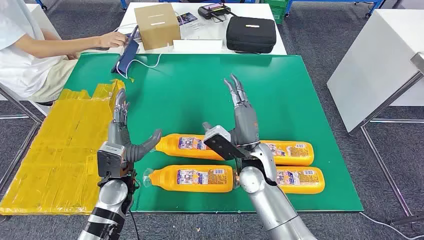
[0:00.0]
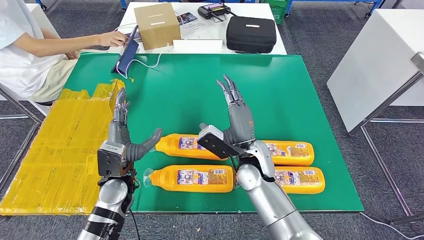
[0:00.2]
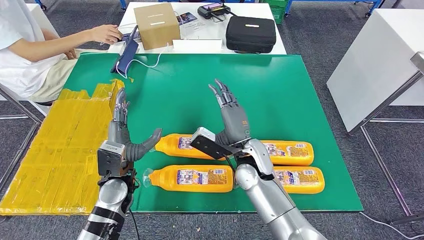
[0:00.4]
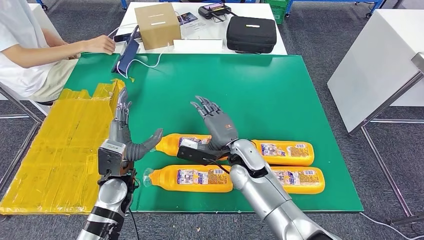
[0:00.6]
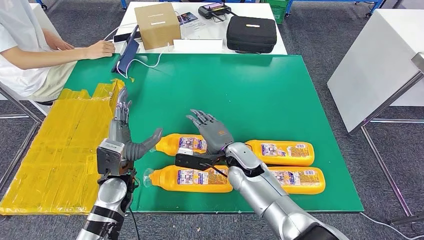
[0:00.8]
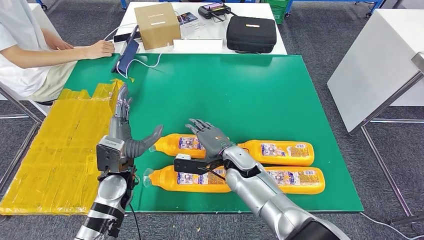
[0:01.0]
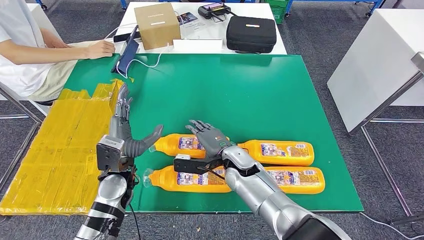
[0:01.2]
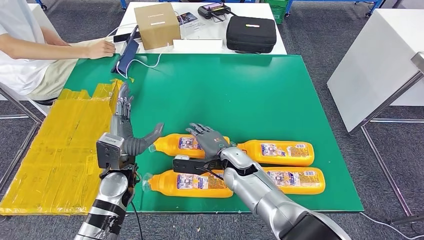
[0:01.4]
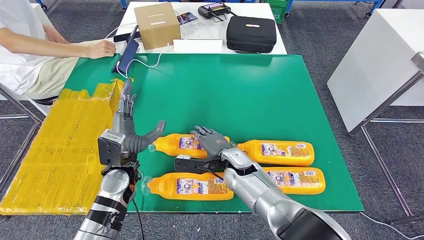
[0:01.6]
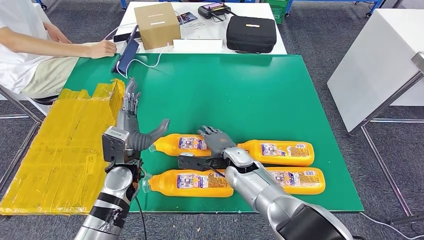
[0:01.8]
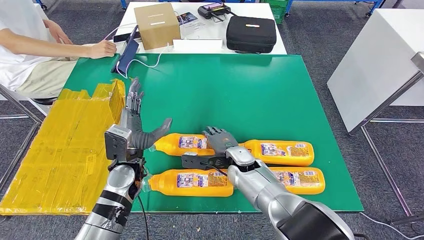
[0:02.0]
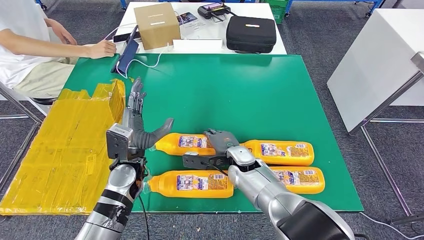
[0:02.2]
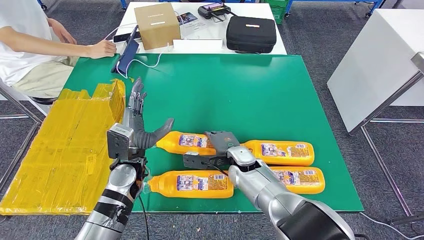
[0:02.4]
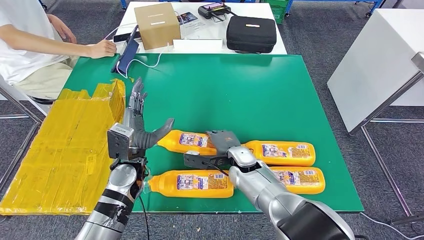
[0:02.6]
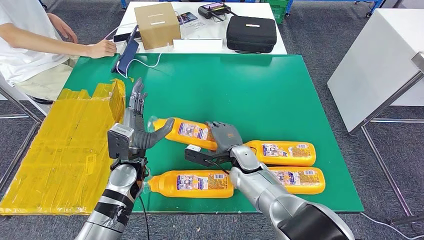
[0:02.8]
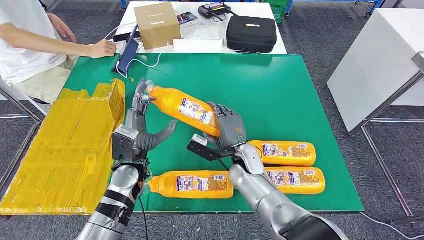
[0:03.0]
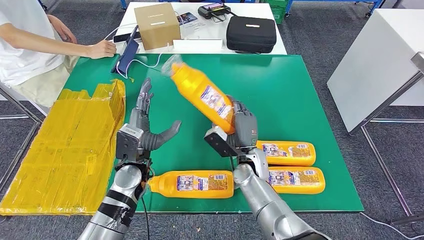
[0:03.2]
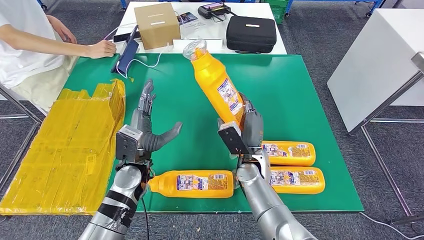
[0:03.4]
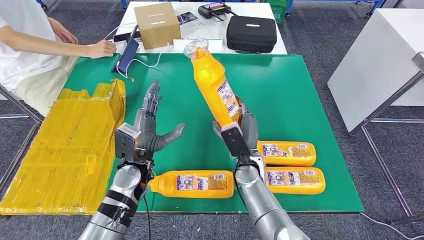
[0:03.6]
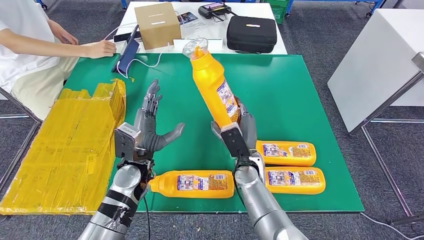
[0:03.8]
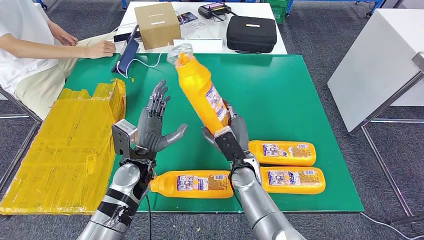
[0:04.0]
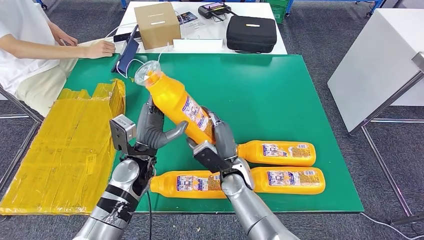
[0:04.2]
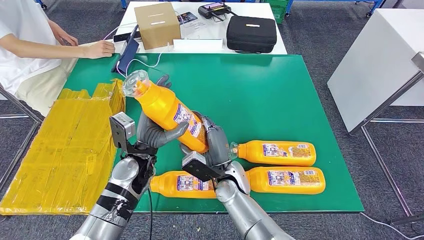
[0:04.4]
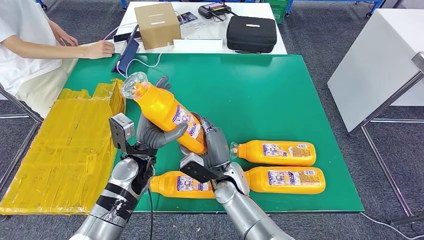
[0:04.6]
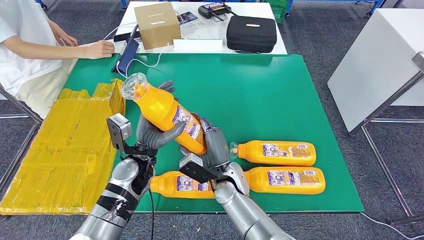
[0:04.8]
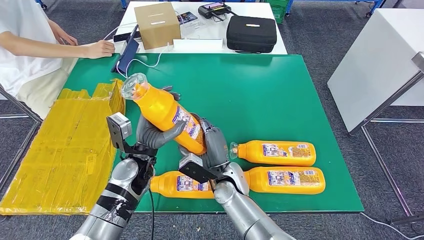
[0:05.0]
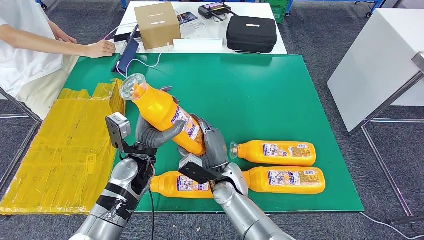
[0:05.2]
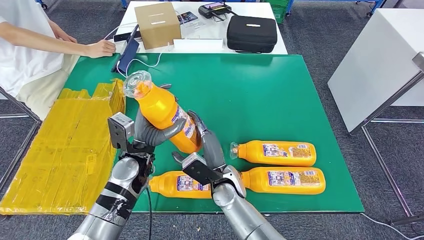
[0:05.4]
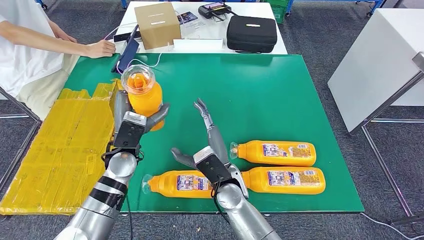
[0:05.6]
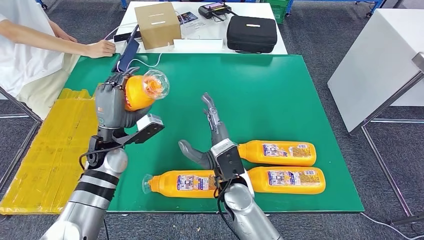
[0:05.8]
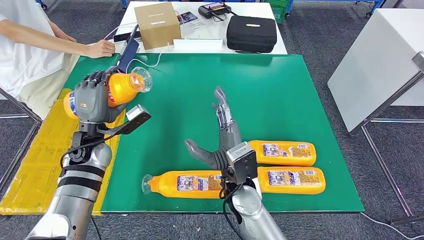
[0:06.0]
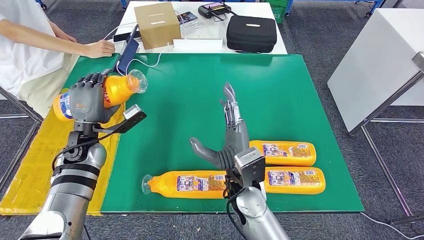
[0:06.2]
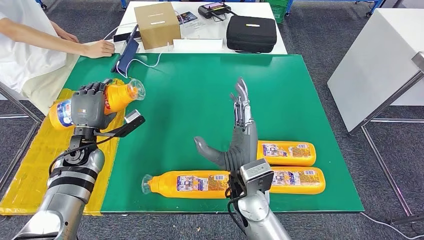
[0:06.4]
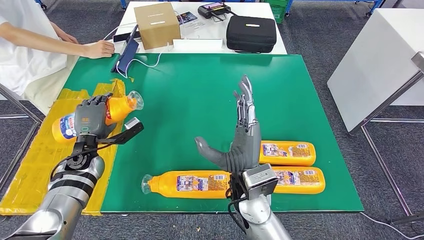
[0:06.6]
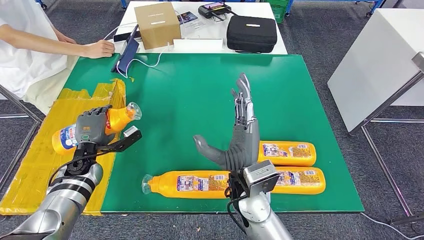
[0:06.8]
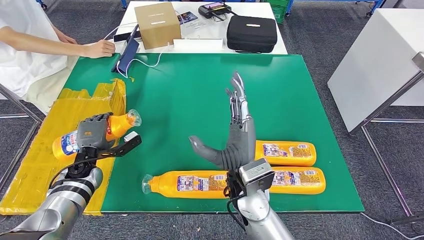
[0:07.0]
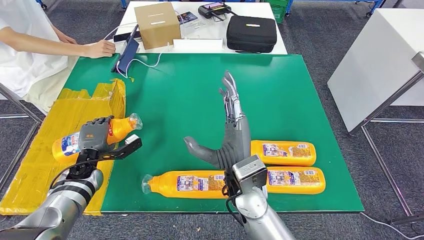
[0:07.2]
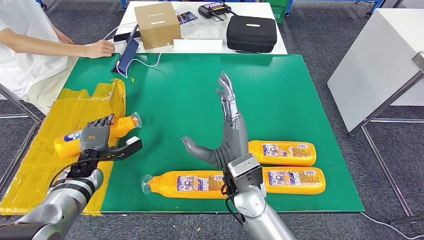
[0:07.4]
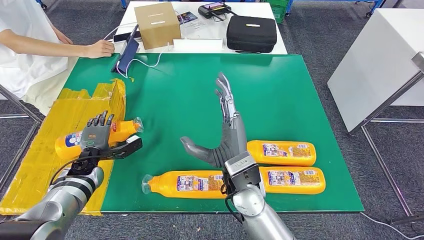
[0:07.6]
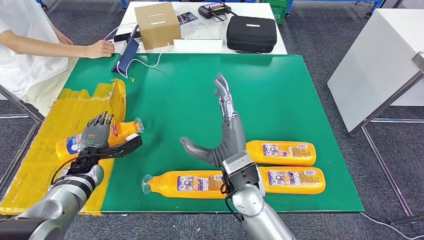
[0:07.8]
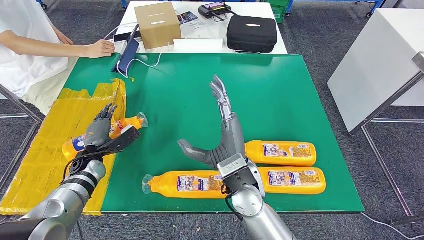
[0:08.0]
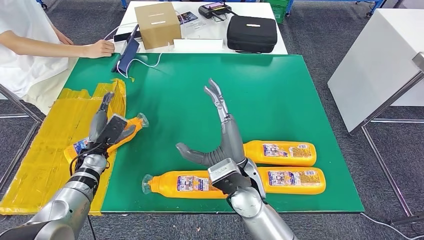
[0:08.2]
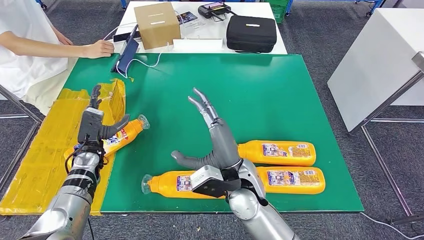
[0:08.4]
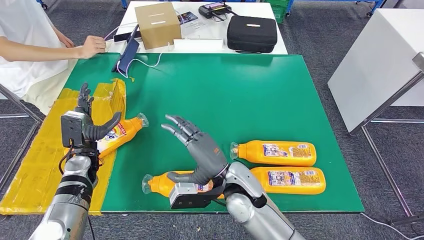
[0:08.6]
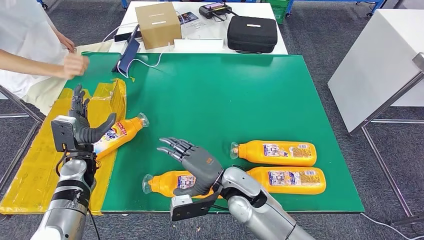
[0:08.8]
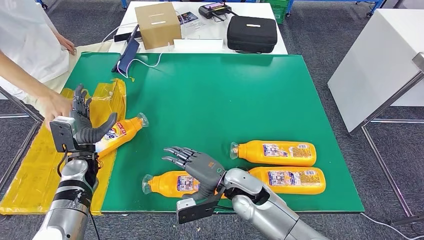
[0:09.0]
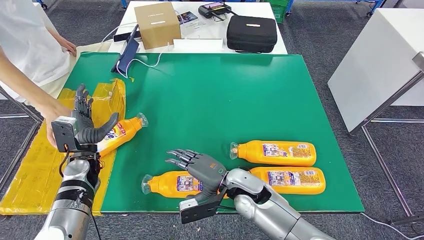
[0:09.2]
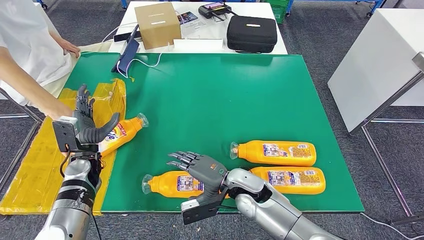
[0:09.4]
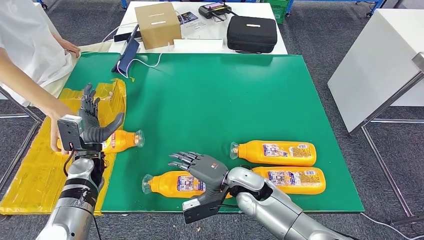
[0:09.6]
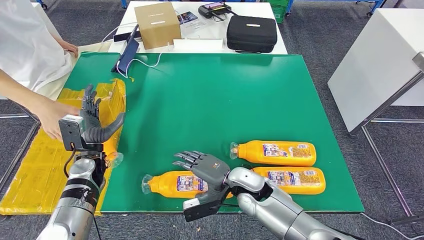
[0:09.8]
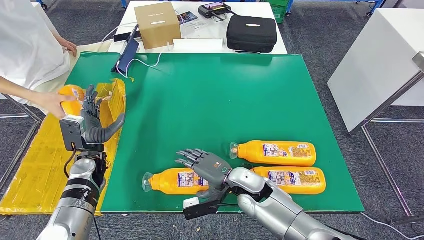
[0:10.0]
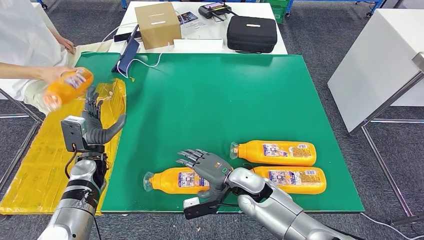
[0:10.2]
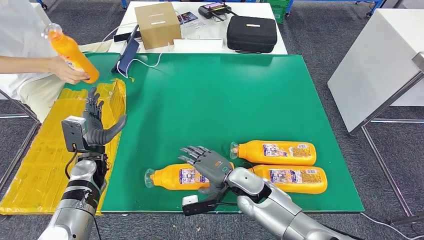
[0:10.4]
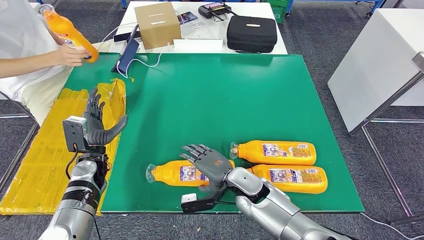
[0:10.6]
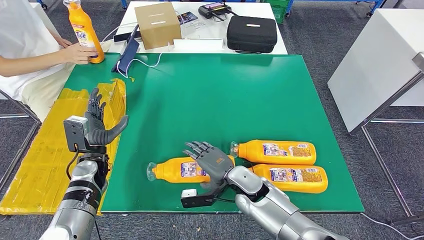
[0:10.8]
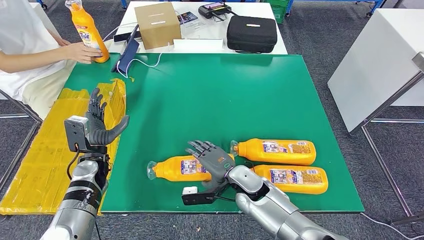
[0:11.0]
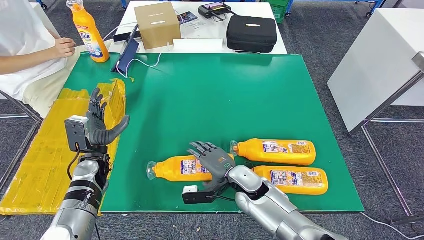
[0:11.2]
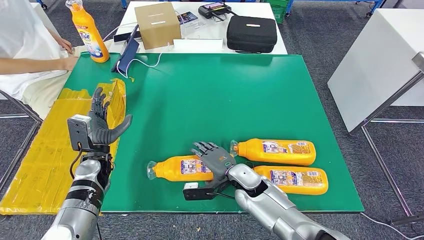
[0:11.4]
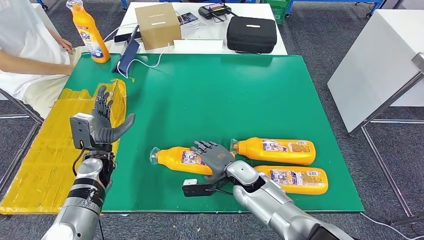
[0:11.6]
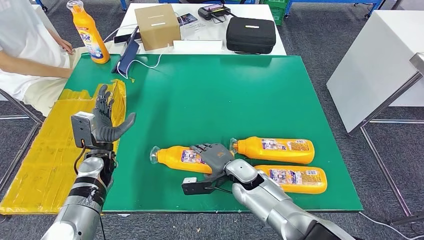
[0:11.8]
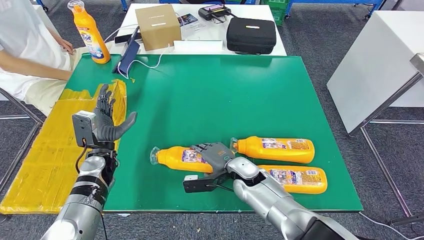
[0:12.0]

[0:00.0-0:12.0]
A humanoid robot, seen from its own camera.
Step, 0:00.0 to 0:05.0: Take the fast-moving consumer goods bottle from the table.
Step, 0:05.2 to 0:08.2: Flip the fast-moving consumer goods bottle to the front side.
0:03.0 to 0:04.4: The right hand moves backward, about 5 cm.
0:06.0 to 0:07.6: The left hand heads downward and to the left, covering some 15 cm.
0:07.6 to 0:09.0: The right hand heads downward, covering about 10 cm.
0:09.0 to 0:10.4: The hands make only small movements.

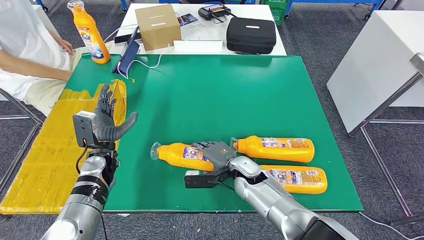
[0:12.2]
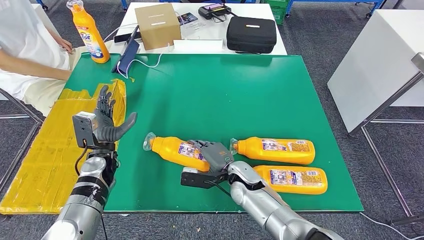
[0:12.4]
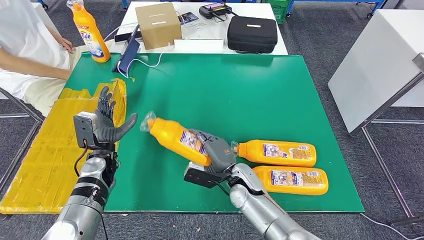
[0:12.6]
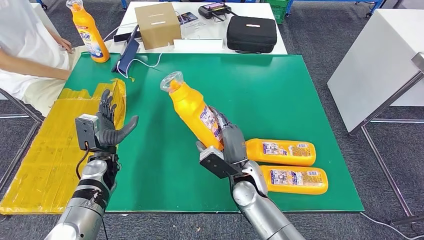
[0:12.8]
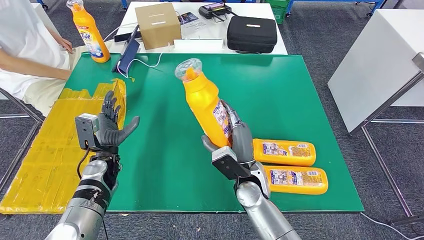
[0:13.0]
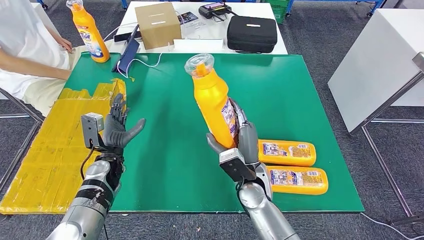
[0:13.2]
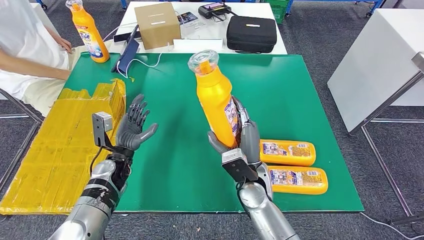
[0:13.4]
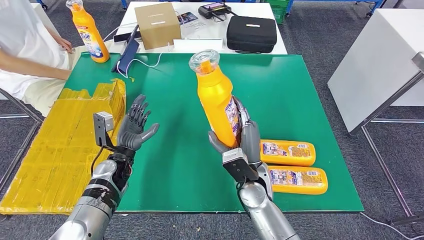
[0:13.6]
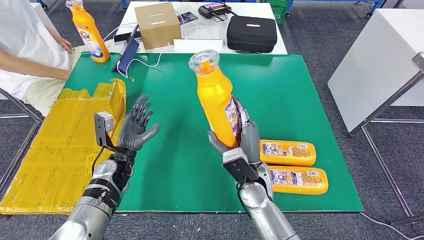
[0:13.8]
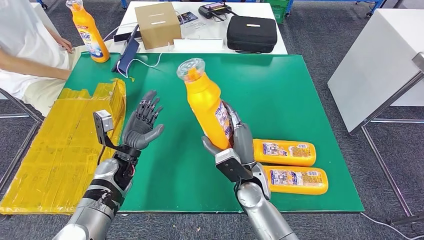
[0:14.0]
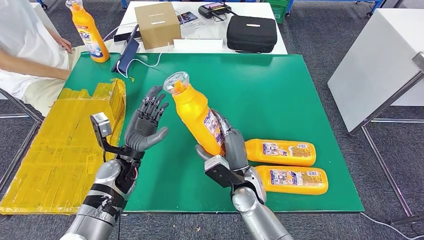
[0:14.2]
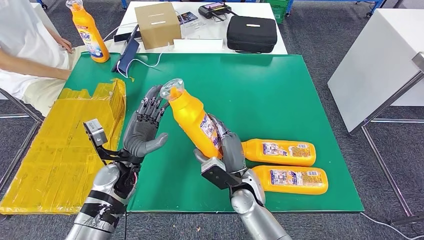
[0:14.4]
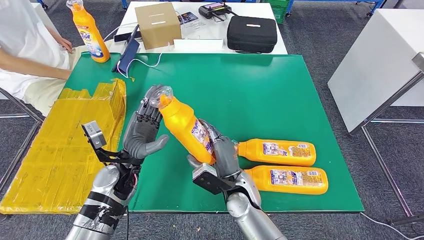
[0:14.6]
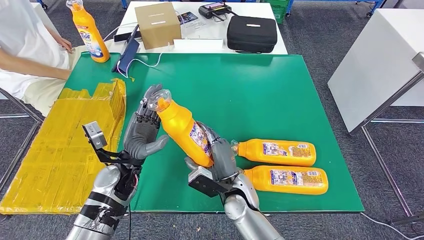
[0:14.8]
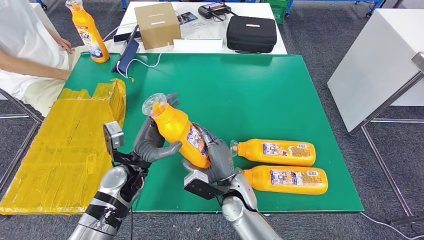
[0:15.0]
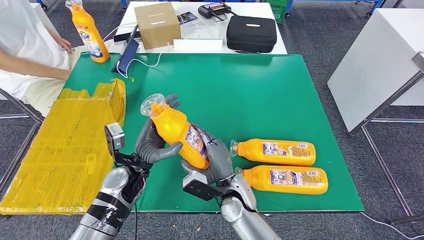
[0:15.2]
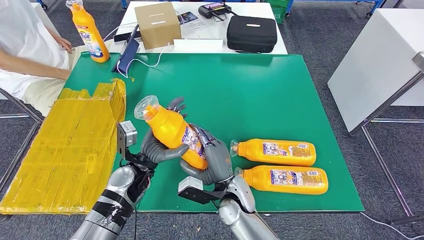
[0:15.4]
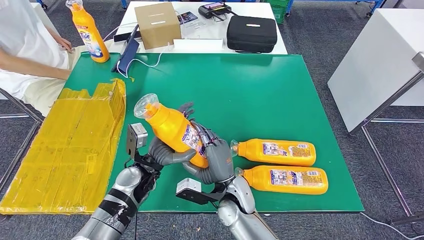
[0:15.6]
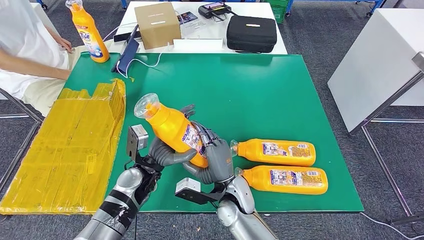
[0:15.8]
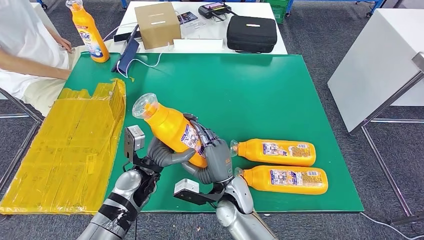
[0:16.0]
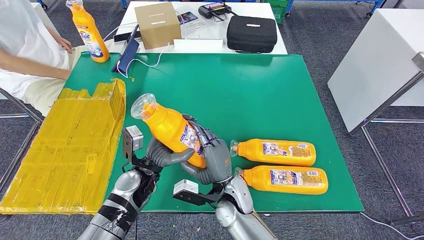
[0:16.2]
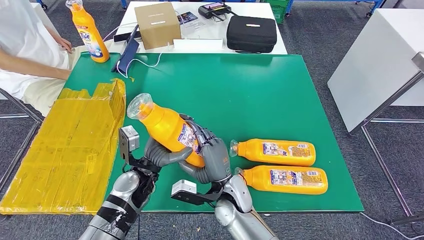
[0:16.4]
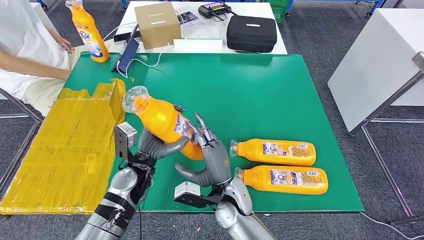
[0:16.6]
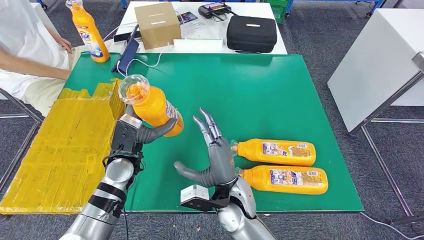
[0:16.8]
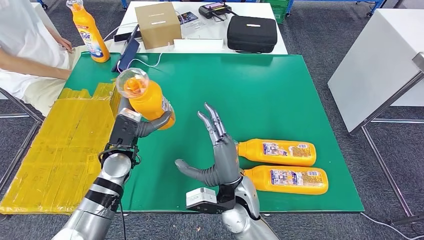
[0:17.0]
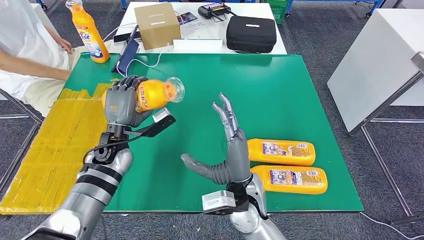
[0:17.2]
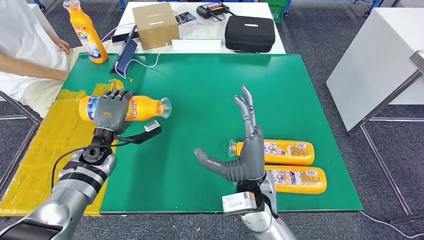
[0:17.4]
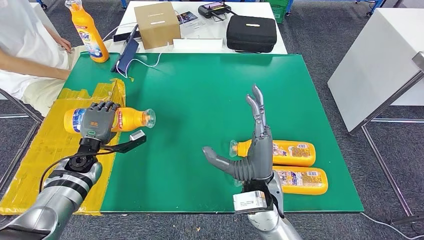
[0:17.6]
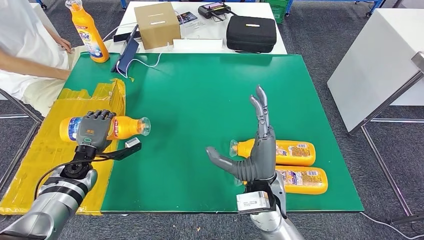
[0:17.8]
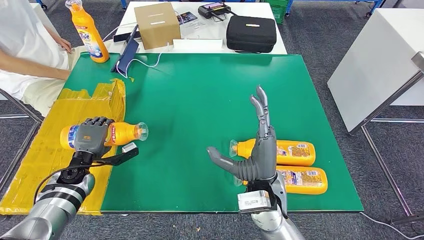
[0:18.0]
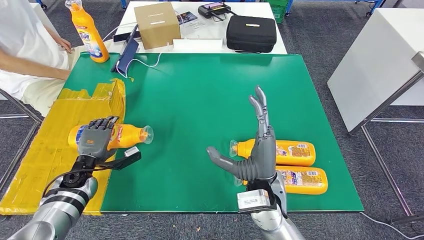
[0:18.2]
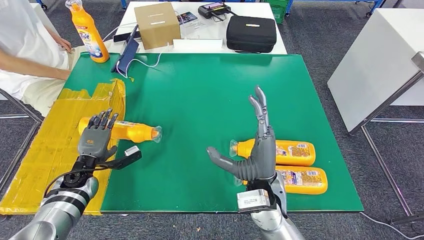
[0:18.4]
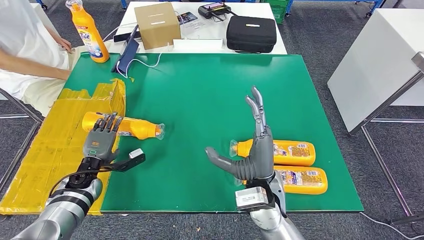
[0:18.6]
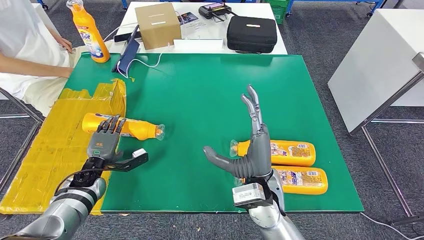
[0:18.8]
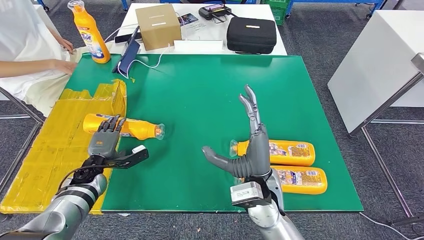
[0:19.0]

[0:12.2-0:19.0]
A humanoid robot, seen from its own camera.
Step, 0:12.2 to 0:16.0: Pick up the fast-moving consumer goods bottle from the table.
0:13.6 to 0:15.0: The right hand shifts by roughly 5 cm; the left hand shifts some 5 cm to the right.
0:15.0 to 0:16.2: The hands move only a little.
0:16.2 to 0:17.6: The left hand heads to the left, covering about 15 cm. The right hand is displaced upward and to the right by some 10 cm.
0:17.6 to 0:19.0: The left hand moves downward, about 5 cm.
